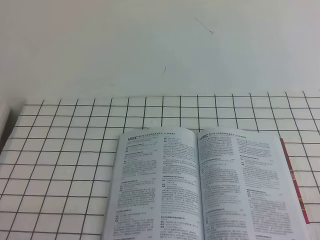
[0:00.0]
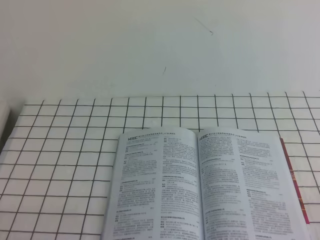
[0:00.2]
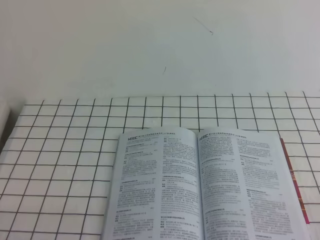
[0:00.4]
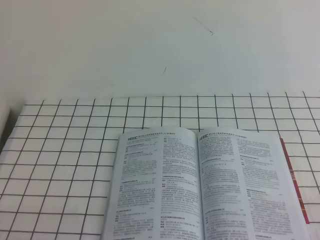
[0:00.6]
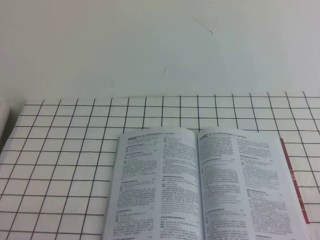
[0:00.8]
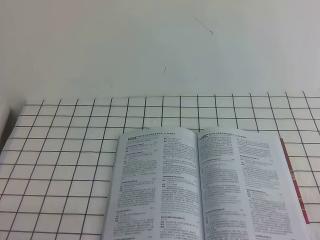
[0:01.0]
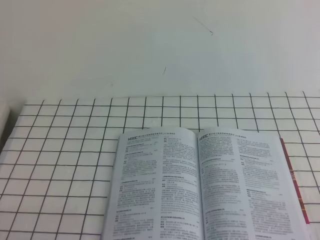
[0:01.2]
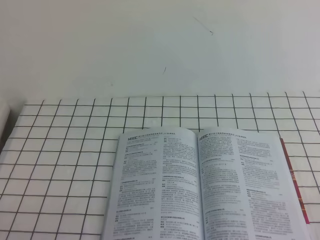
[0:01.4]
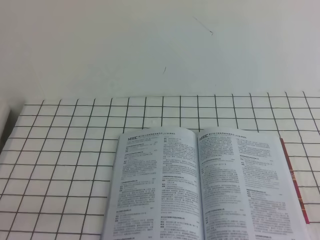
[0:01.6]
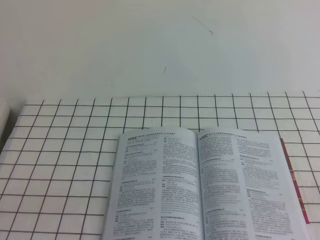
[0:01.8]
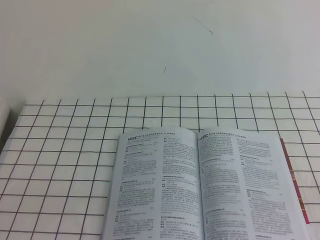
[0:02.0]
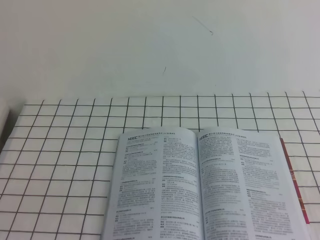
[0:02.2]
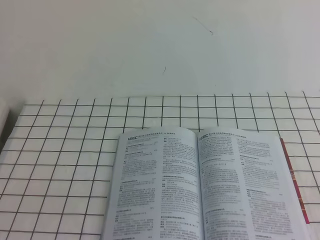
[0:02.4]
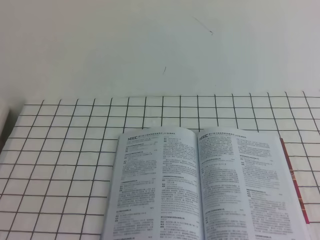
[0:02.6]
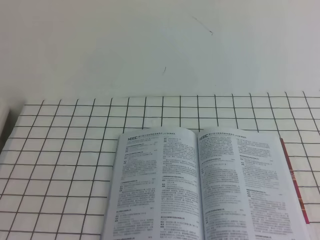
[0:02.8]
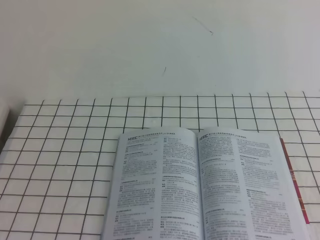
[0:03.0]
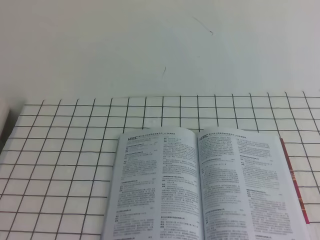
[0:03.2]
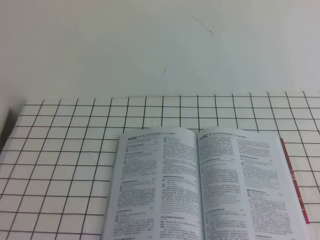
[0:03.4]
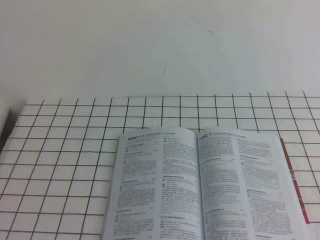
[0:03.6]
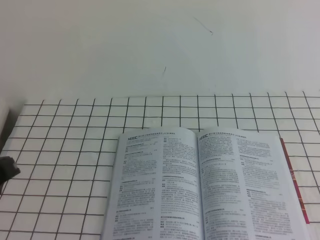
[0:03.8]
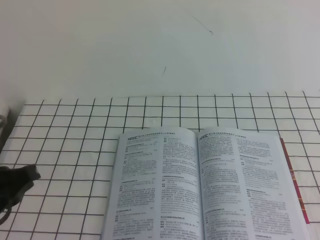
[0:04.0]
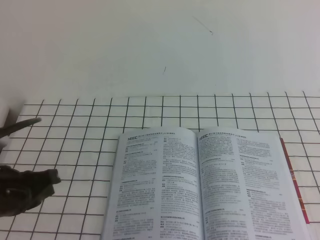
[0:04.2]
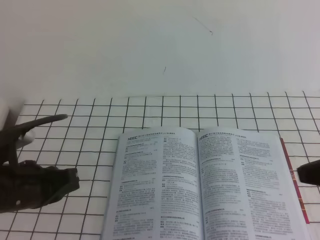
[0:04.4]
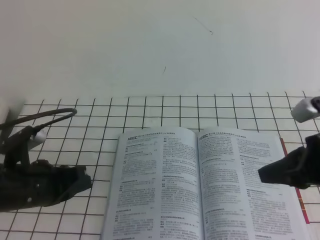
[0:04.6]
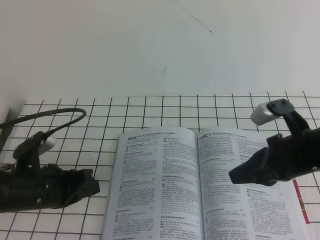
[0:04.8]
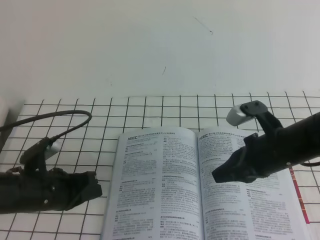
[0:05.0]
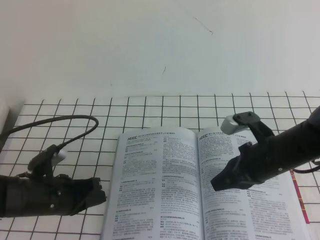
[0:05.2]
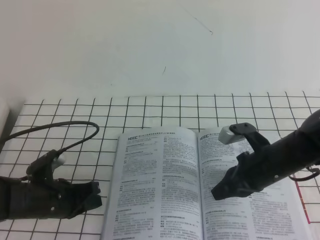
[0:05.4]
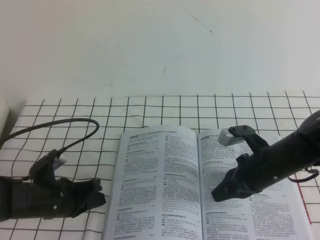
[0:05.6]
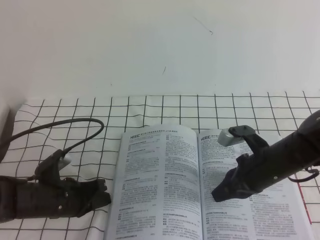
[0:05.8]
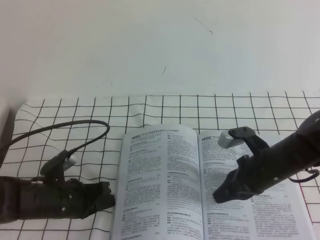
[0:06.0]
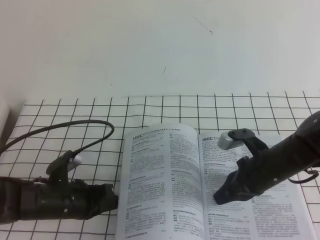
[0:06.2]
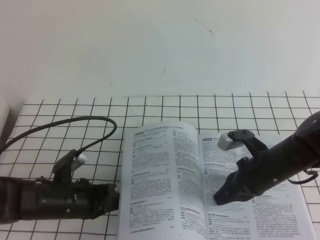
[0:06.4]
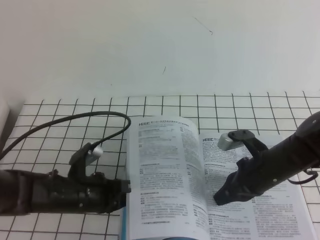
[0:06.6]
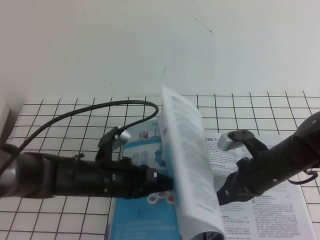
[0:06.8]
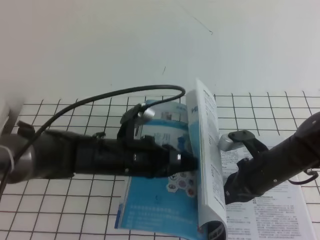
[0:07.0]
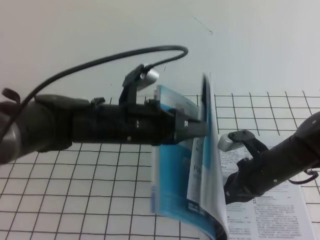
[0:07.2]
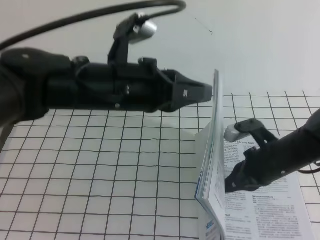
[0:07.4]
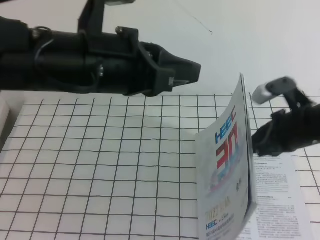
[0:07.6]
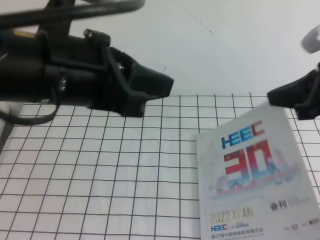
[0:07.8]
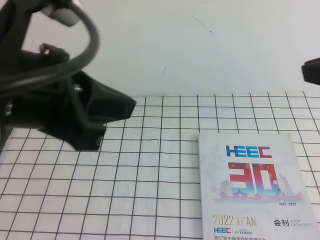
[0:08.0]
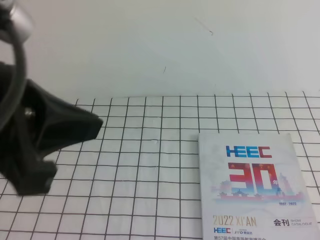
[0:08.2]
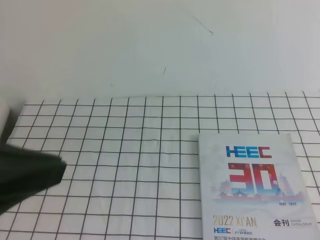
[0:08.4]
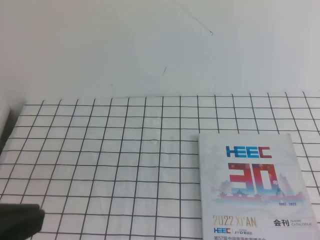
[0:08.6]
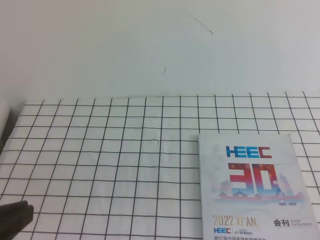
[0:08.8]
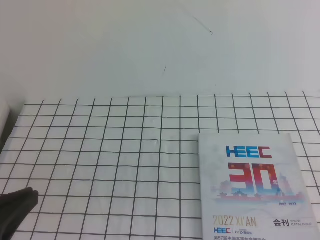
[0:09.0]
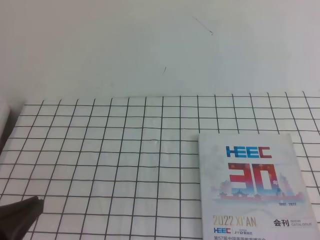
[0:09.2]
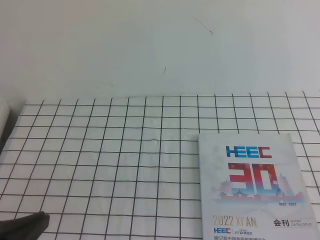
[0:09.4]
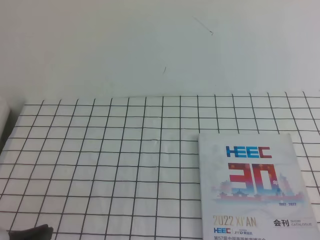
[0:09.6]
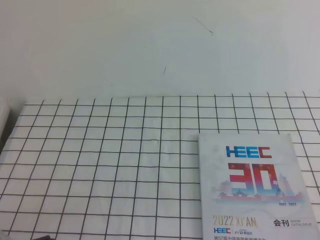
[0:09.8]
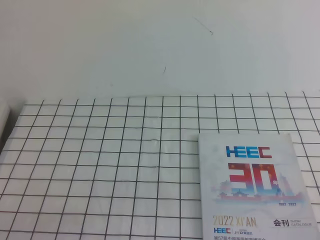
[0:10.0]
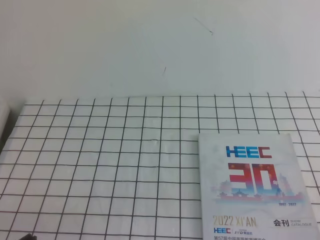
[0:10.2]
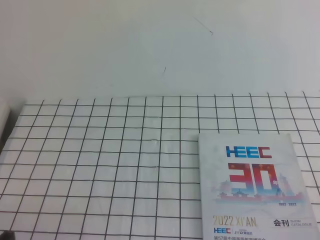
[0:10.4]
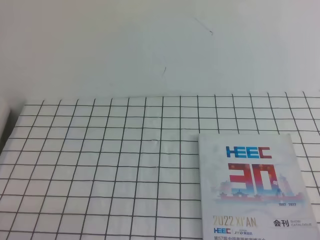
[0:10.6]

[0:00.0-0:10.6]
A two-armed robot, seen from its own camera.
Task of the whole recording: on the white tablecloth, hold the book with one hand and close it with the other.
0:03.0 to 0:04.6: Both grippers move forward and downward, approximately 30 cm.
0:04.6 to 0:06.0: The left gripper goes roughly 10 cm downward; the right gripper goes approximately 15 cm downward, forward and to the left.
0:06.0 to 0:07.6: The right gripper is displaced upward by approximately 10 cm; the left gripper heads upward, covering about 30 cm.
0:07.6 to 0:09.0: The right gripper is displaced backward and upward by some 30 cm. Meanwhile the left gripper heads backward and to the left, covering roughly 20 cm.
0:09.0 to 0:10.6: The left gripper shifts about 15 cm downward.

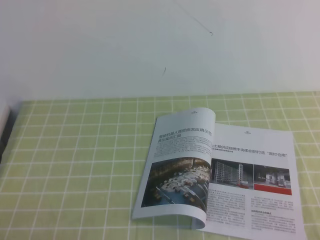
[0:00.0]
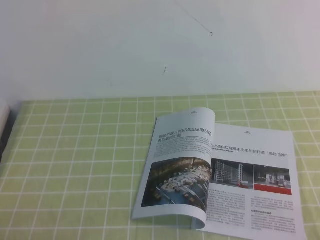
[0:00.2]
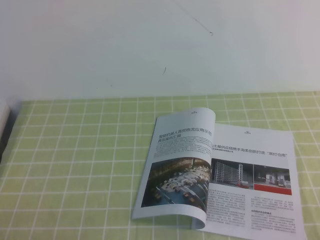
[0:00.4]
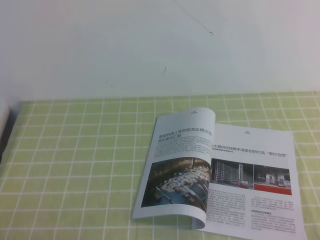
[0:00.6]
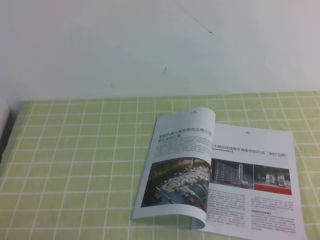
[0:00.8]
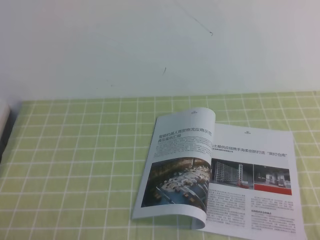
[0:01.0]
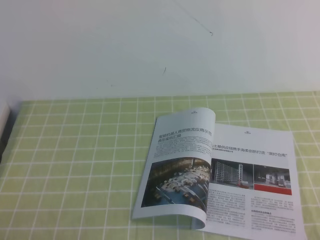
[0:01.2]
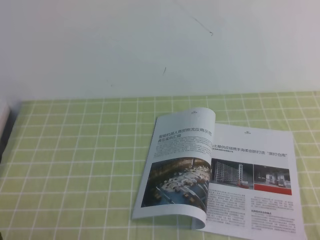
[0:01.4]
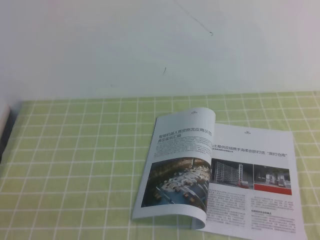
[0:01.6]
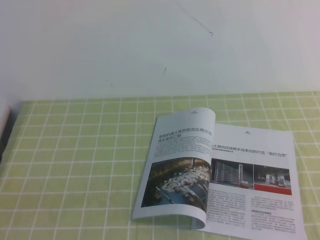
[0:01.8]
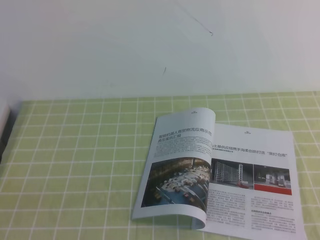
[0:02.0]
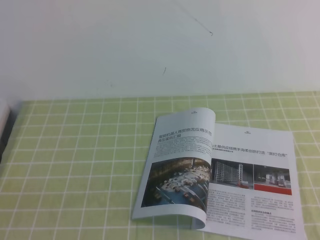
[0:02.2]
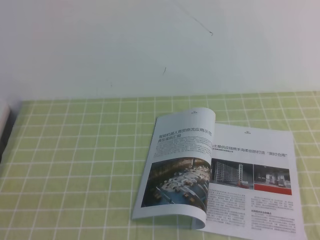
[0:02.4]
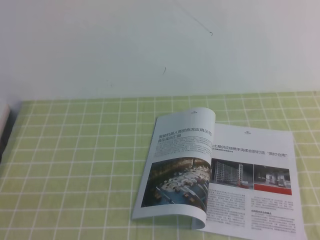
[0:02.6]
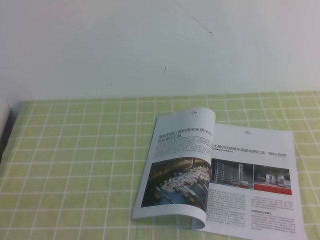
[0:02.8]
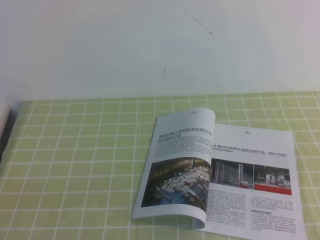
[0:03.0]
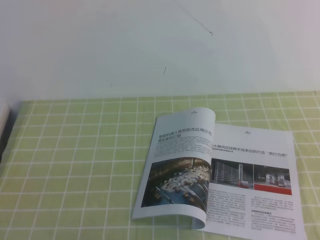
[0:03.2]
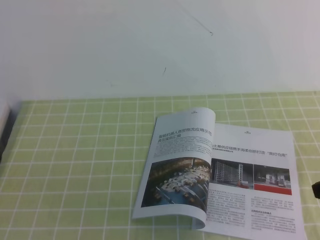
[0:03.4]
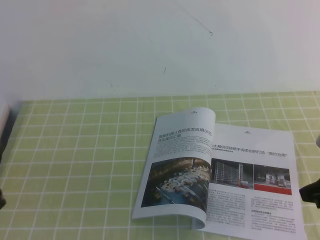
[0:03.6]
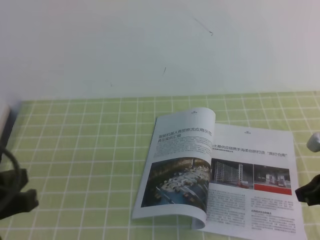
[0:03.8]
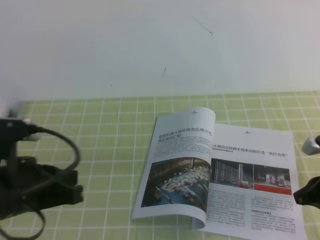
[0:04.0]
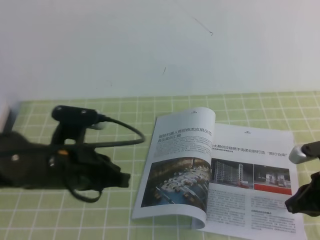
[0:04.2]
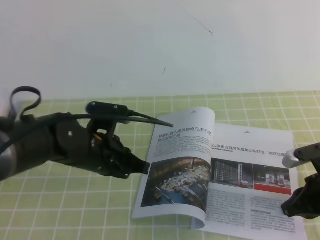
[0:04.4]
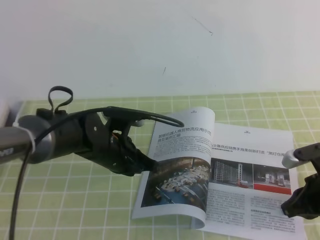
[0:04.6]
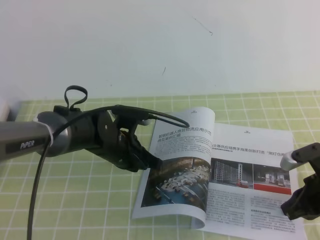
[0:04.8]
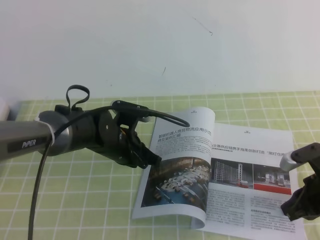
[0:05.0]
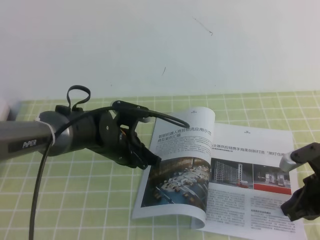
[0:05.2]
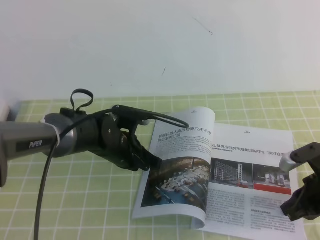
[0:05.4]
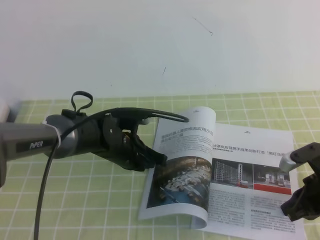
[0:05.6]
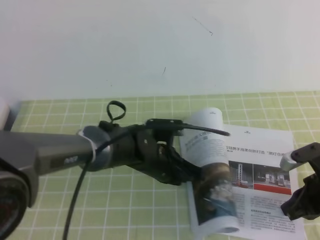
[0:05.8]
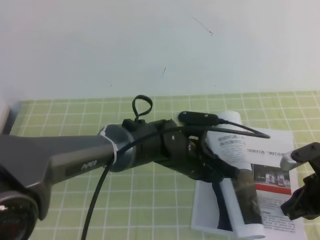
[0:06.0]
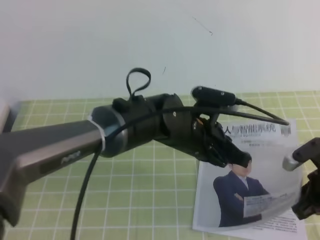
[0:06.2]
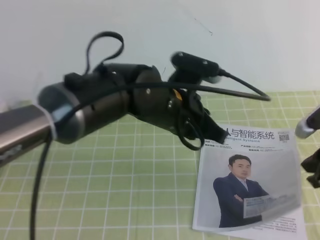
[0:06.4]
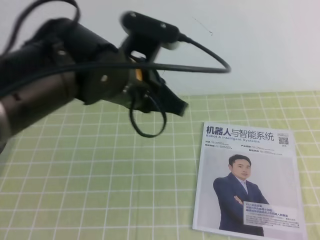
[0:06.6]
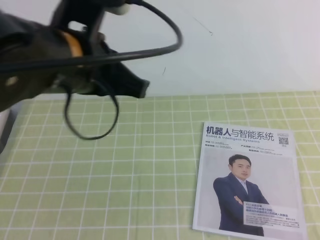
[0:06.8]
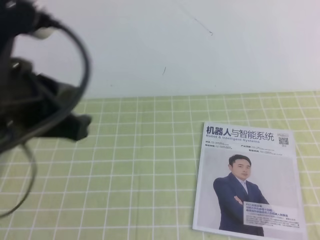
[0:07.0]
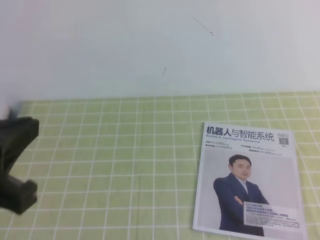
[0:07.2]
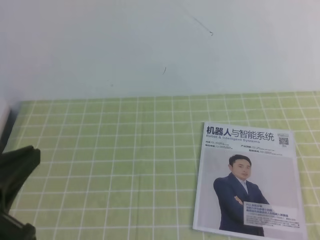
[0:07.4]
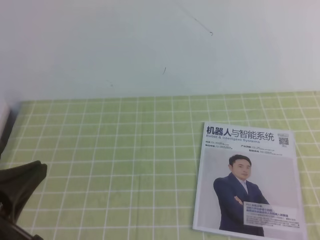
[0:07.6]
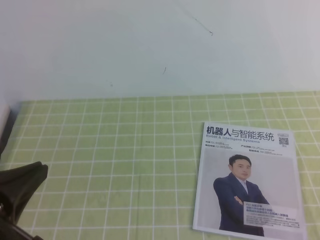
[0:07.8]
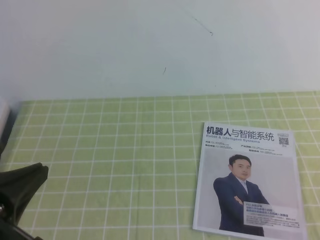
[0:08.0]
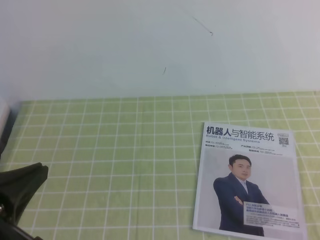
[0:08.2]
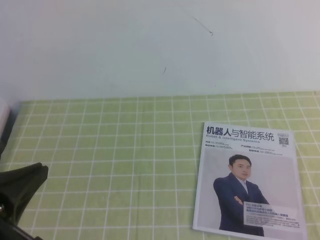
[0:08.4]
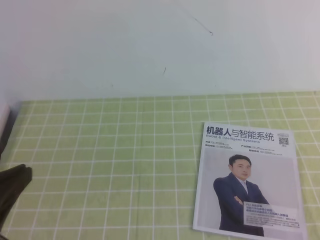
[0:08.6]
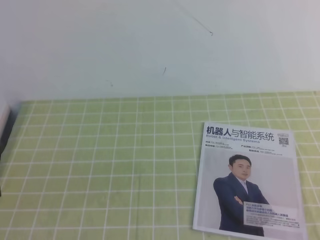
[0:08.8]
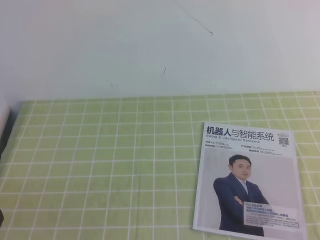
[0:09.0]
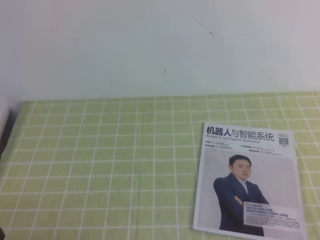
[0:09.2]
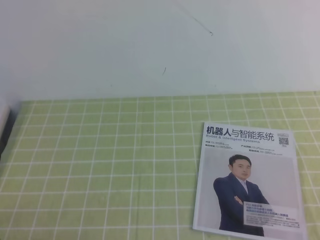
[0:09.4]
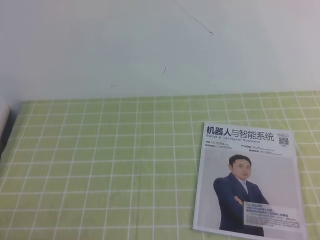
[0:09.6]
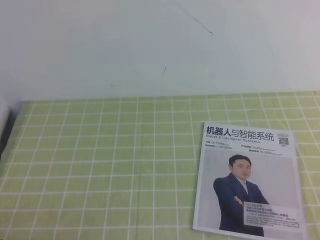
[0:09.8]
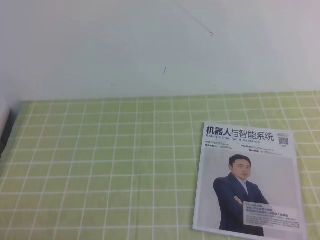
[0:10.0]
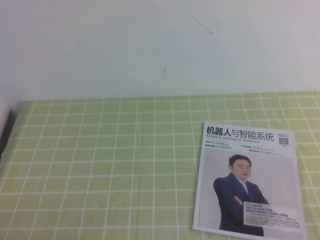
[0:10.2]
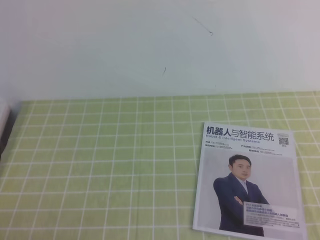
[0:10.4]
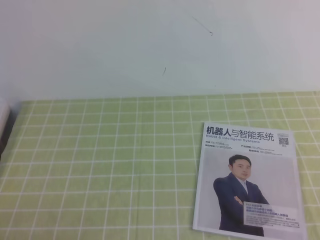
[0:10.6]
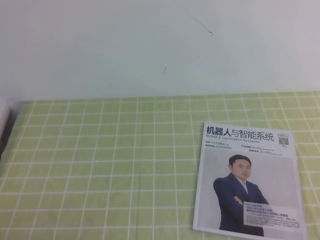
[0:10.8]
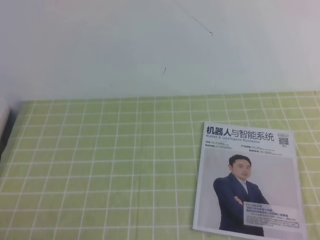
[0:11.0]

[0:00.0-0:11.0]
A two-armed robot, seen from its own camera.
Task of the whole recording: on the green tablecloth, hold the book with one hand and close it with the other.
0:03.2 to 0:04.8: The left gripper travels forward, to the right and downward by about 35 cm, while the right gripper travels downward and forward by approximately 20 cm.
0:04.8 to 0:06.2: The left gripper moves to the right and upward, about 15 cm.
0:06.2 to 0:07.8: The left gripper travels to the left, backward and upward by some 35 cm; the right gripper shifts approximately 25 cm backward and upward.
0:07.8 to 0:09.4: The left gripper travels downward by approximately 15 cm.
